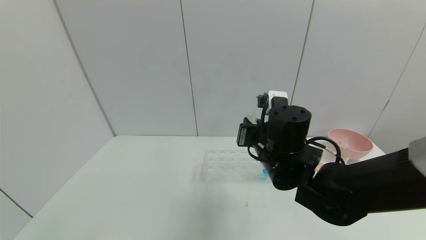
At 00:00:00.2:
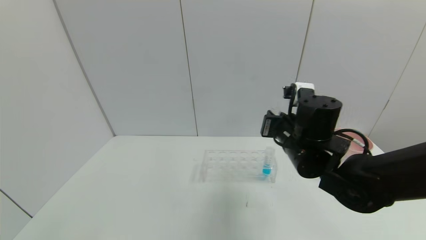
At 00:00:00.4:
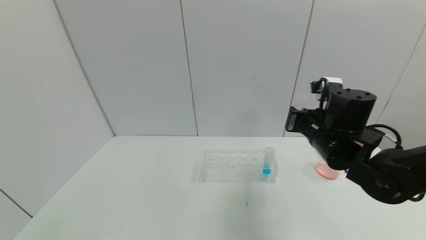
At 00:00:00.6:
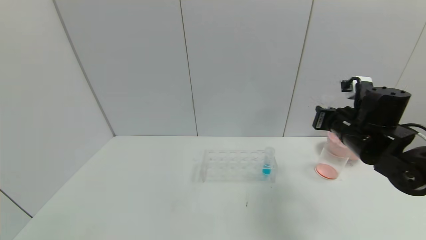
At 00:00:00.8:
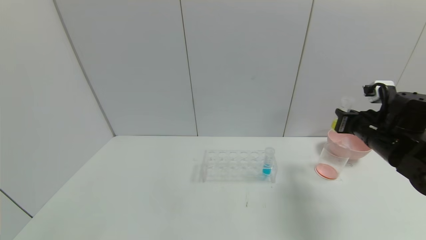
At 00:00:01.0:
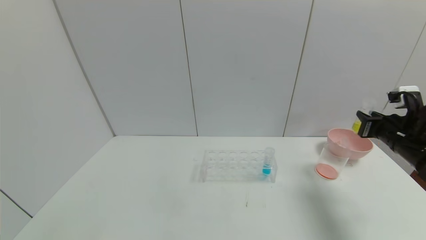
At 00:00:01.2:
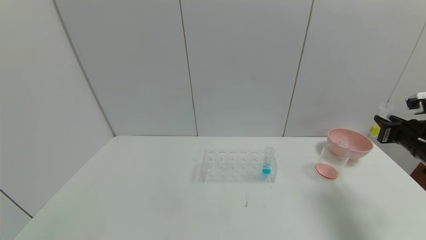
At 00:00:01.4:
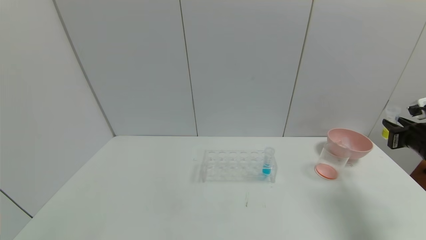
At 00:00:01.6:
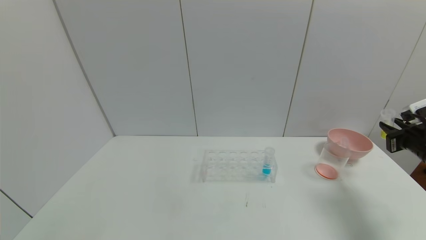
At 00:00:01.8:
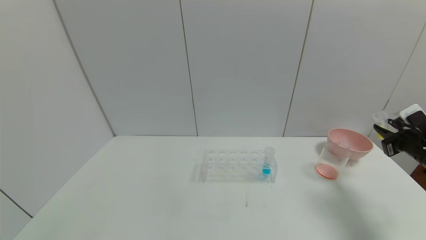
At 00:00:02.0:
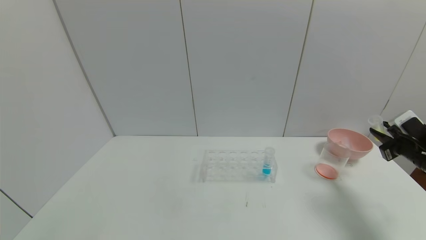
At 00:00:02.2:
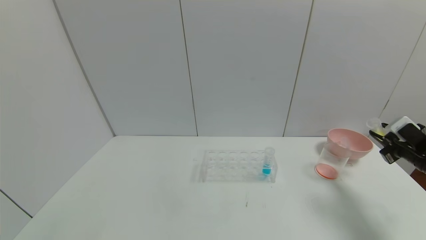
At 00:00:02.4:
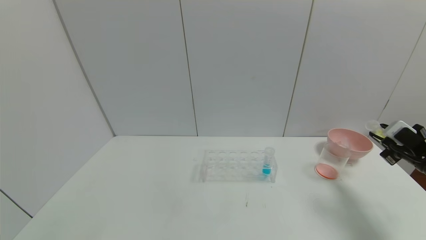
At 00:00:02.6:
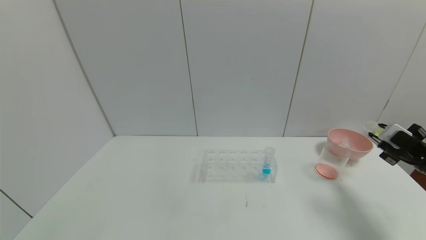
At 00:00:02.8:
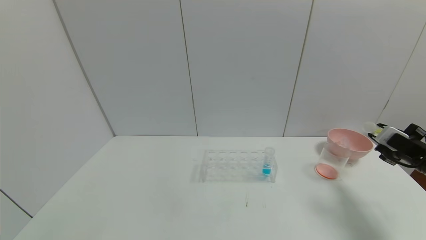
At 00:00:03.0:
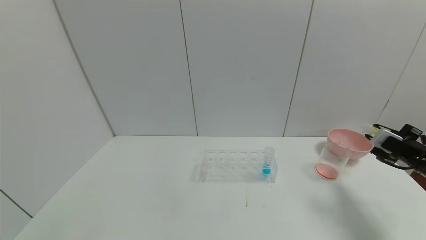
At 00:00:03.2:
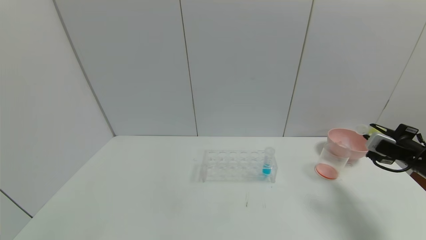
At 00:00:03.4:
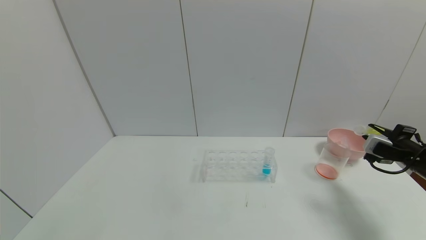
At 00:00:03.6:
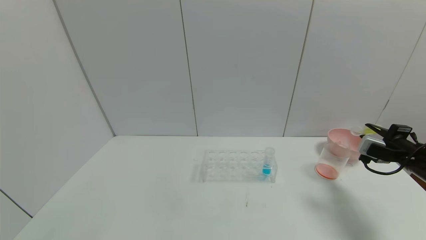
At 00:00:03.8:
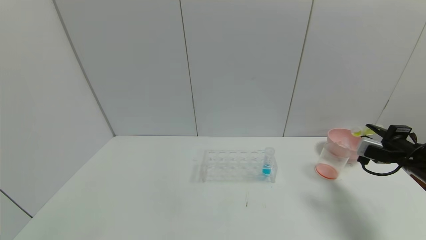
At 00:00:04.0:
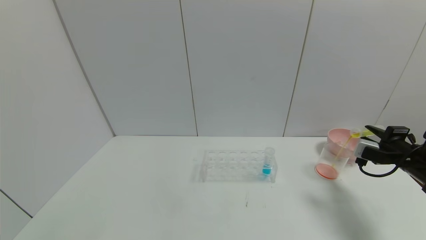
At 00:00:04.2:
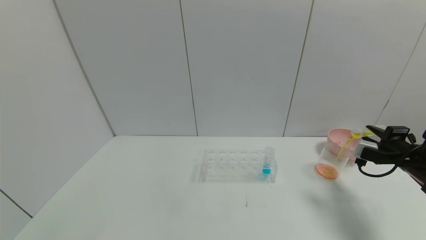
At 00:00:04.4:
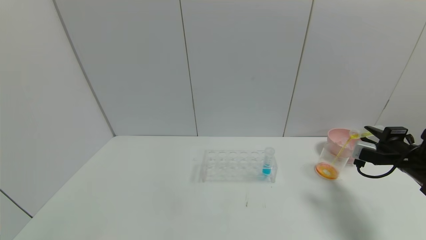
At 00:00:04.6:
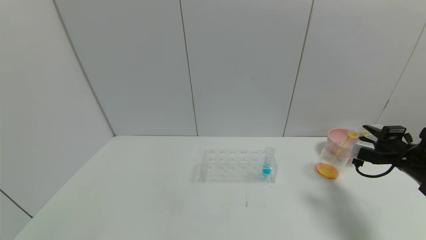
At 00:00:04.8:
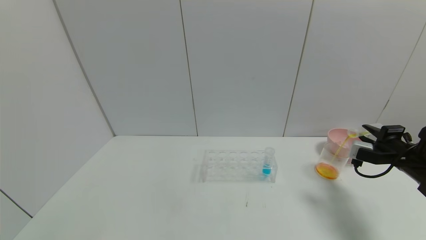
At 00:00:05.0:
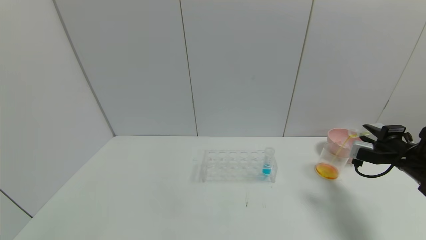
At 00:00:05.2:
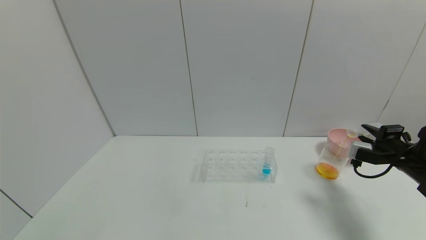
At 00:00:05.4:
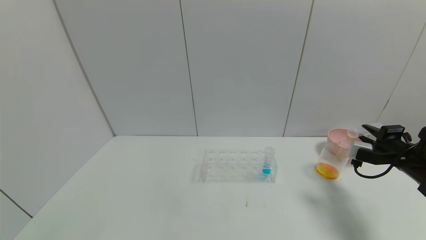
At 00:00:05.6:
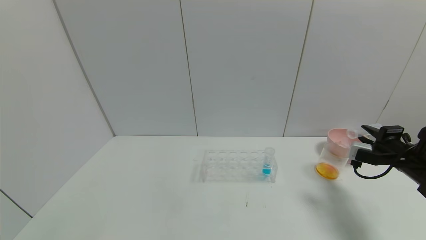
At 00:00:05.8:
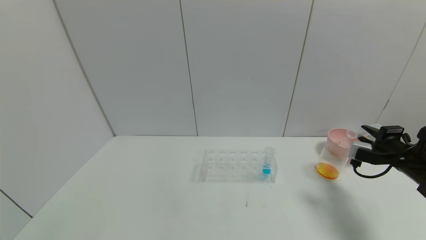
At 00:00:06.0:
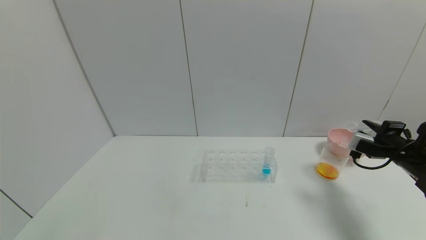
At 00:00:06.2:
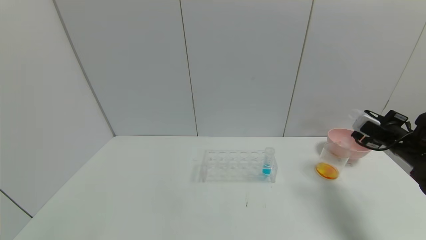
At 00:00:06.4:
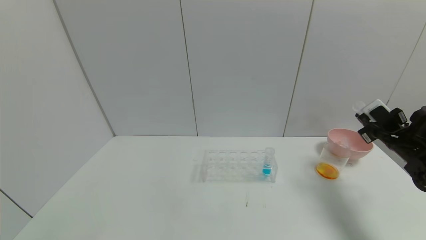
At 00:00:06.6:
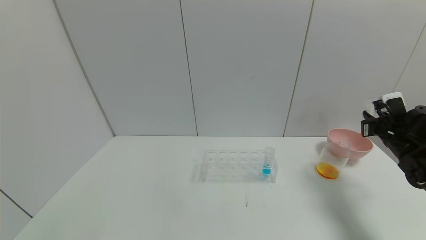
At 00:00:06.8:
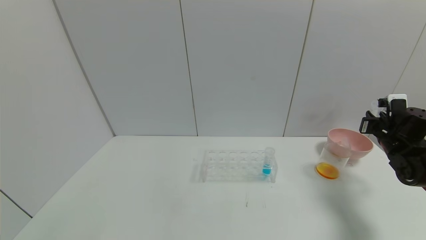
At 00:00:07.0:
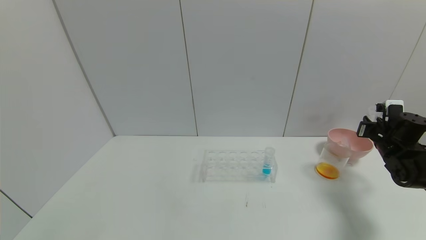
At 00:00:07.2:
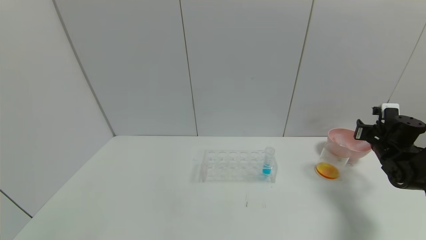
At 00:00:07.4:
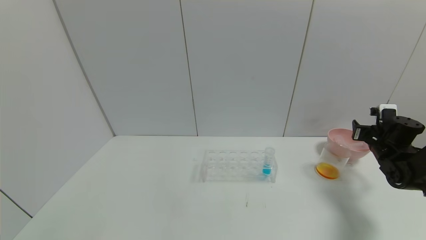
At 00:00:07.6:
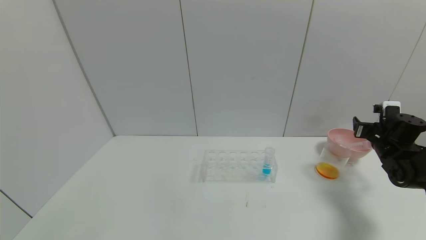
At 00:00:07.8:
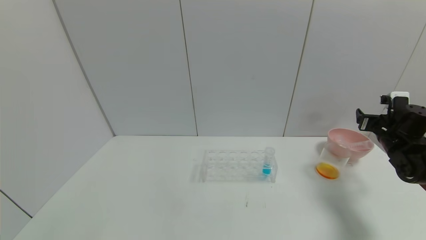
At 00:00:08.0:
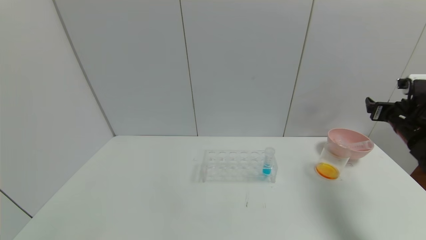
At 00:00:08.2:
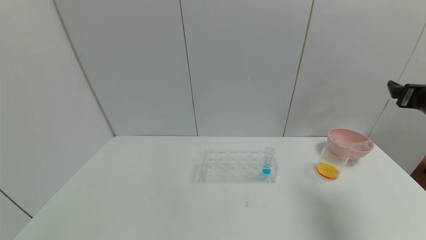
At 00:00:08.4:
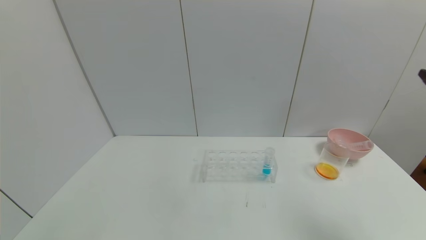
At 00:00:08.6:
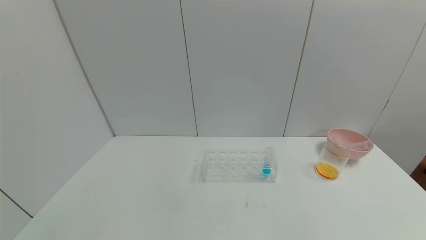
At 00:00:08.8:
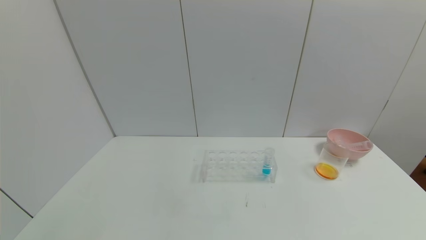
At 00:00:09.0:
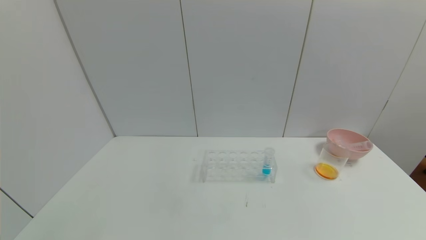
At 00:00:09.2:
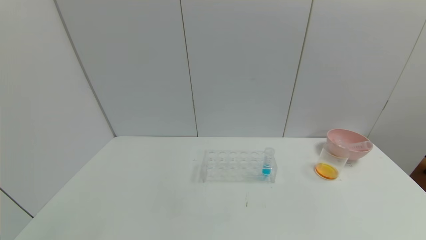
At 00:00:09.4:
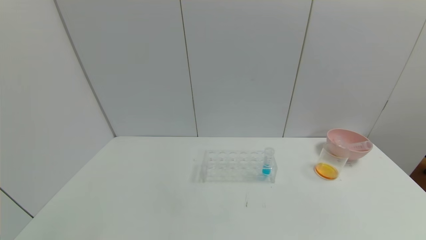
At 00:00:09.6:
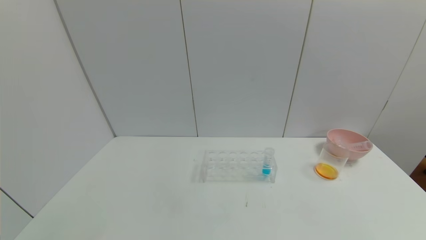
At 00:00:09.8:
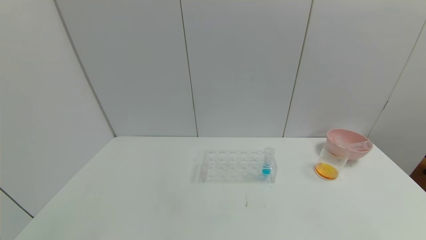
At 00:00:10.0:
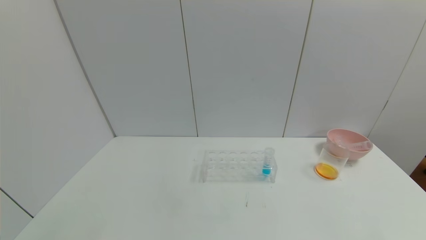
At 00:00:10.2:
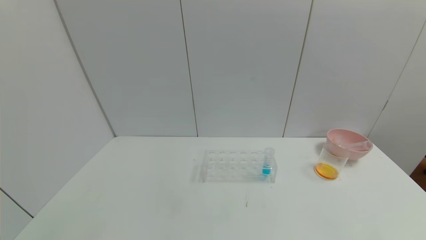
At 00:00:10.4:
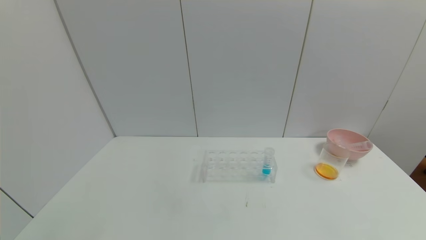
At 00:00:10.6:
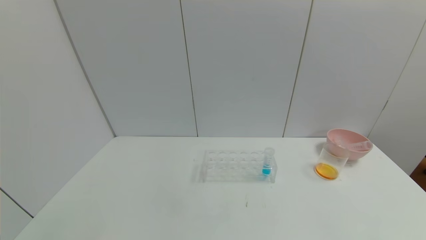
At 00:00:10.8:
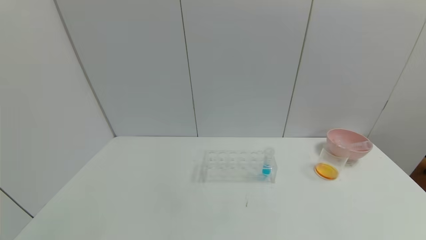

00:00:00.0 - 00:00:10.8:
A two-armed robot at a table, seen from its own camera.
Task of the whole recording: pick up the test tube with yellow pigment and the test tube with red pigment by grippers and pour them into the beaker.
Step, 00:00:01.2 - 00:00:06.6: Pour the yellow reagent into the graduated cylinder with right gripper.
Step, 00:00:06.8 - 00:00:08.2: Place the test tube into the bowl with right gripper.
00:00:00.0 - 00:00:01.6: The right gripper goes approximately 35 cm to the right.
00:00:06.2 - 00:00:07.8: The right gripper opens up.
00:00:07.8 - 00:00:09.2: The right gripper is displaced backward by about 50 cm.
